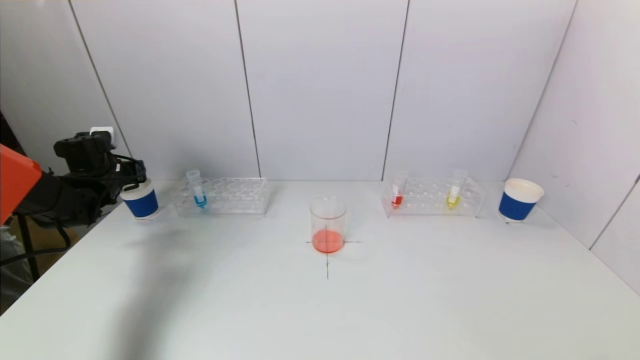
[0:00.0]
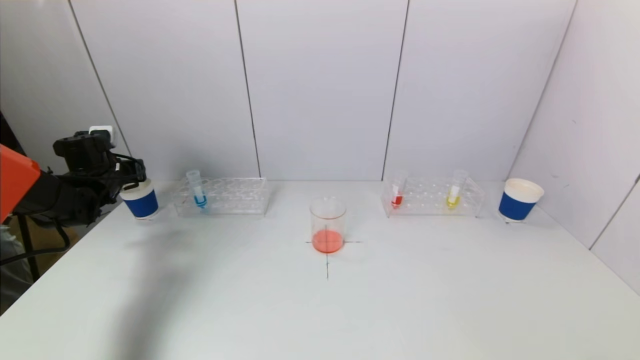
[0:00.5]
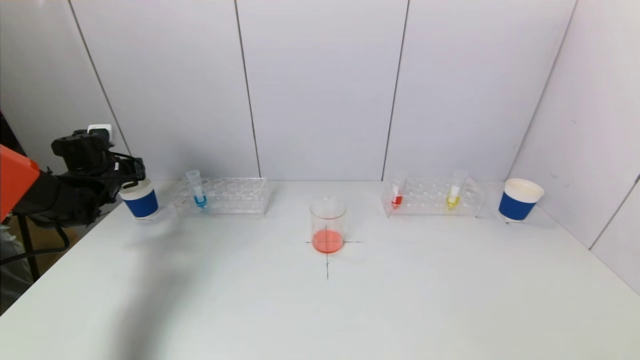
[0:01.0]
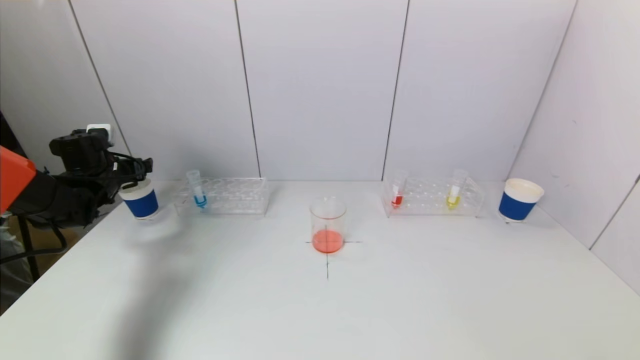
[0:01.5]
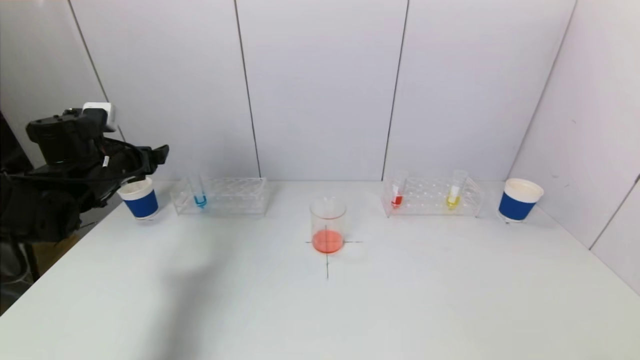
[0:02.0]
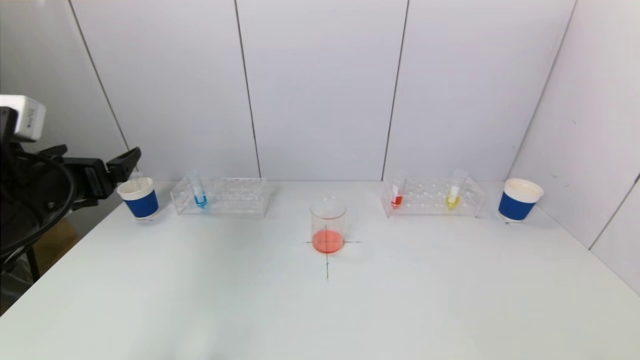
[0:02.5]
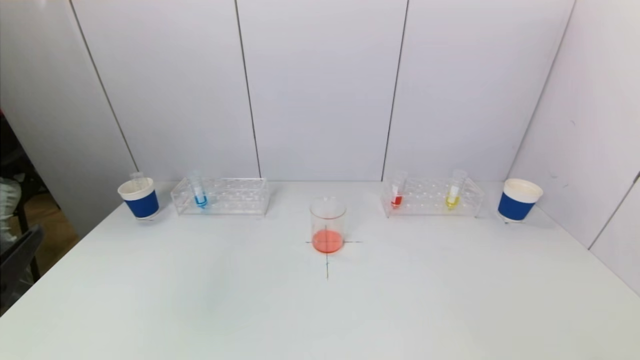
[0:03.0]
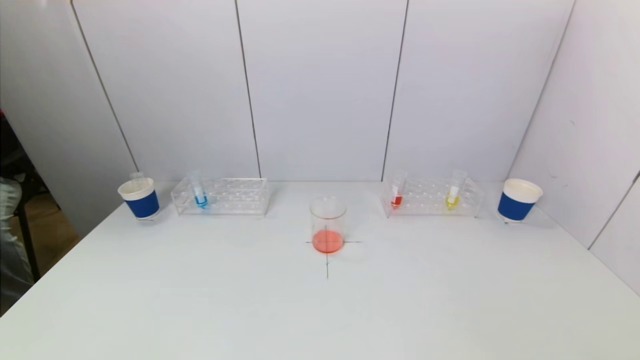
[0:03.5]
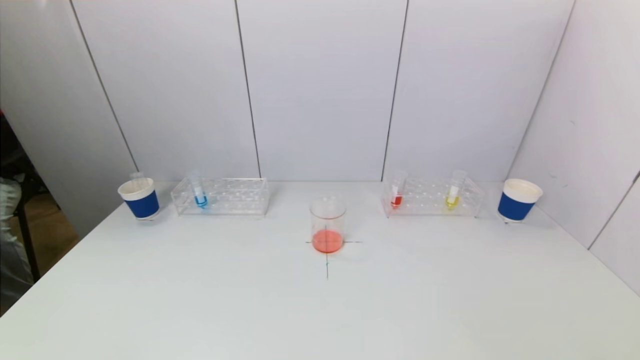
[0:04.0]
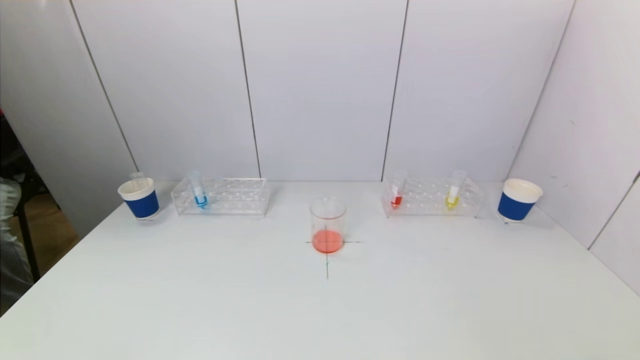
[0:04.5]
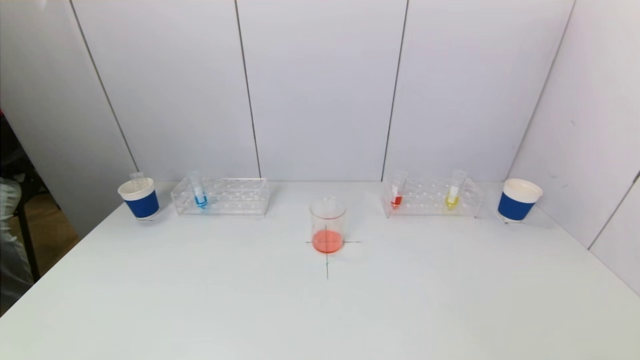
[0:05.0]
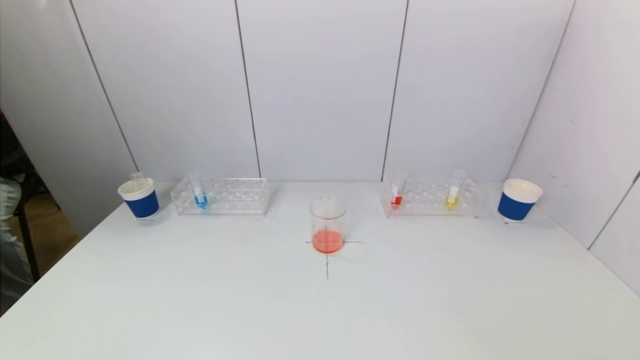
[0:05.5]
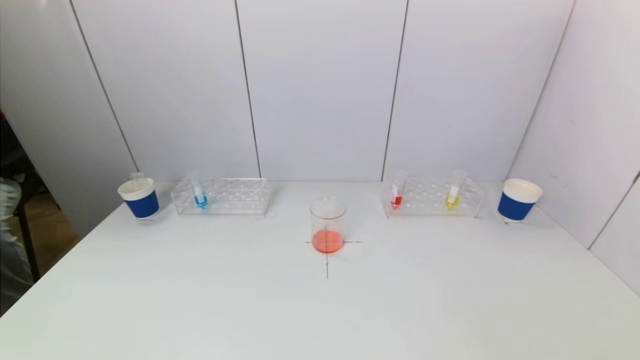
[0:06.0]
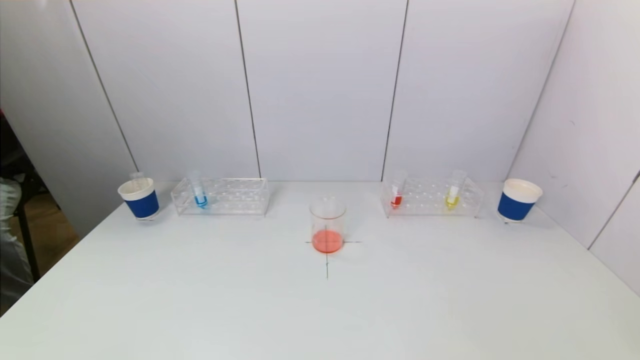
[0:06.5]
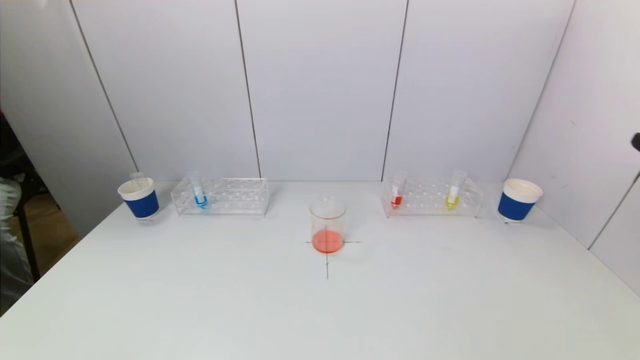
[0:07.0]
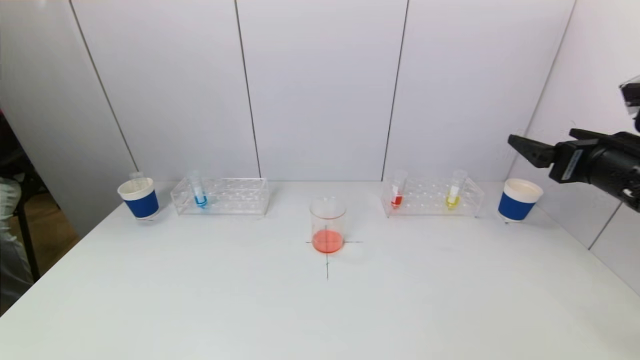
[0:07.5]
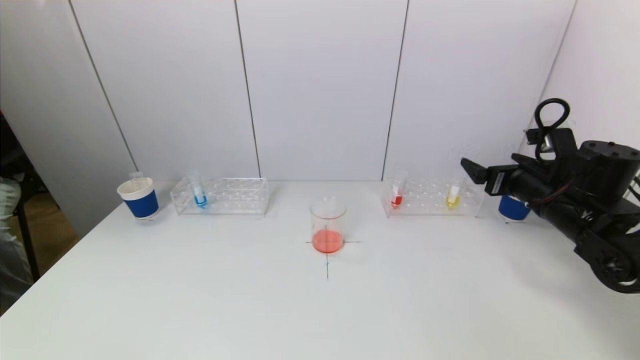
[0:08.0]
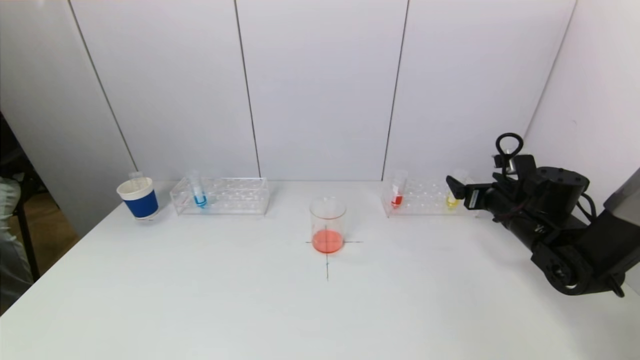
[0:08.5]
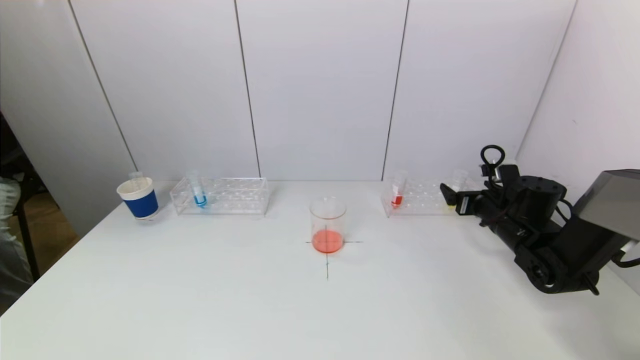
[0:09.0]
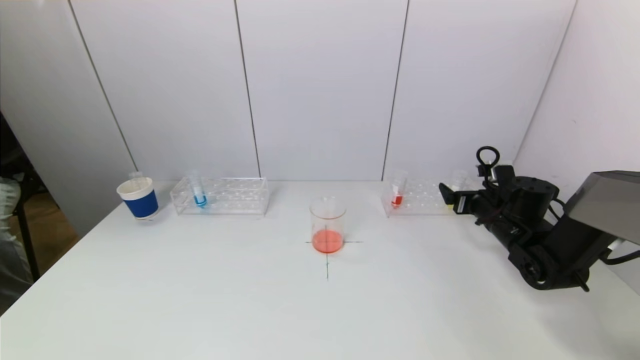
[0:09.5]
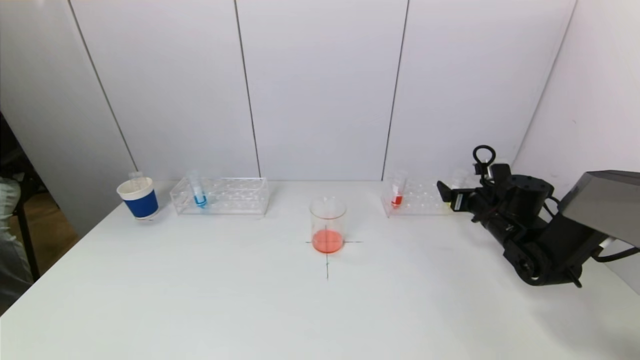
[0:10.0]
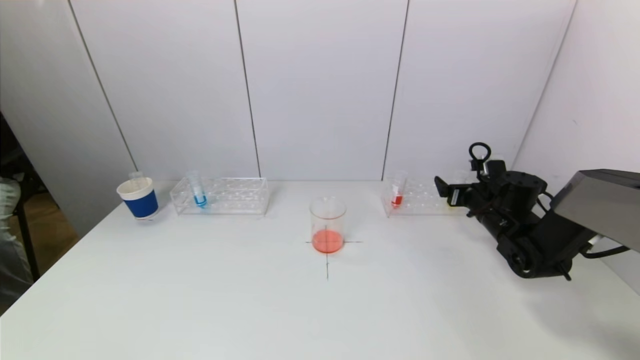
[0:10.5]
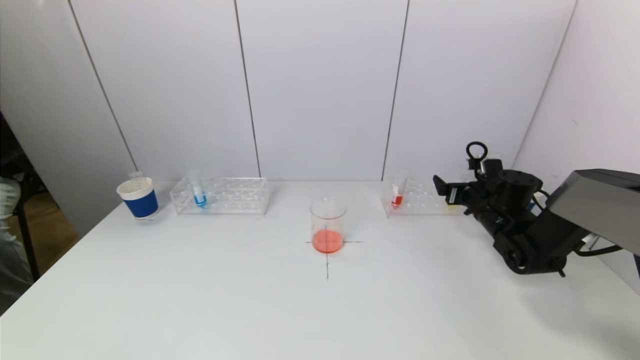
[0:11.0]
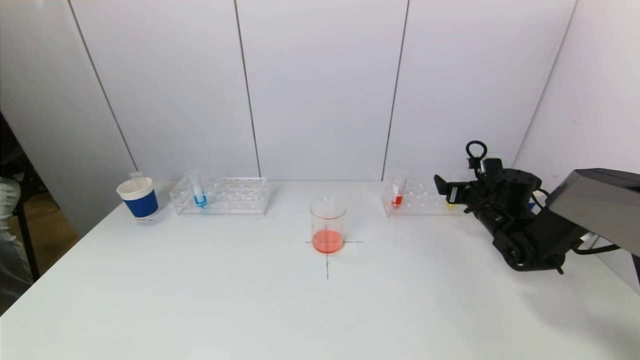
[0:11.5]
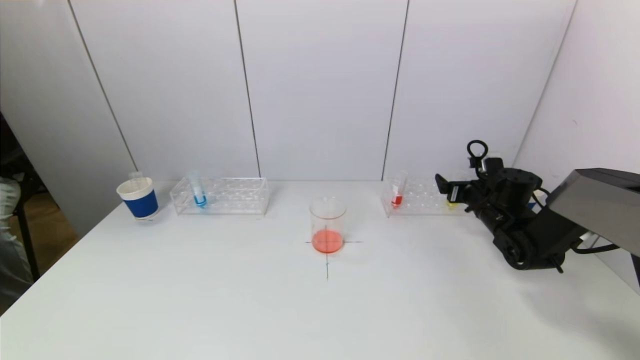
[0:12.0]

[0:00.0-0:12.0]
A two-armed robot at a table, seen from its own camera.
Task of the whole recording: pick up a test tube with pigment on left test tube rack and a test tube with pigment on right test tube rack by grippers and pour them into the beaker.
0:00.0 to 0:02.0: The left gripper travels backward, to the right and upward by approximately 15 cm, and opens its fingers.
0:02.0 to 0:04.0: The left gripper heads backward, covering some 40 cm.
0:04.0 to 0:06.0: Neither gripper changes place.
0:06.0 to 0:08.0: The right gripper is displaced forward by some 35 cm.
0:08.0 to 0:10.0: The right gripper heads downward and forward, covering roughly 15 cm.
0:10.0 to 0:12.0: The grippers stay close to where they were, moving slightly.

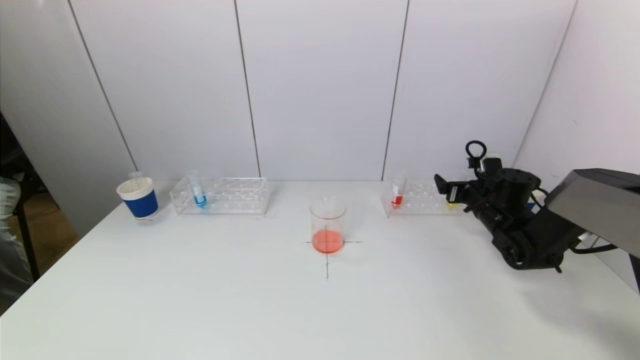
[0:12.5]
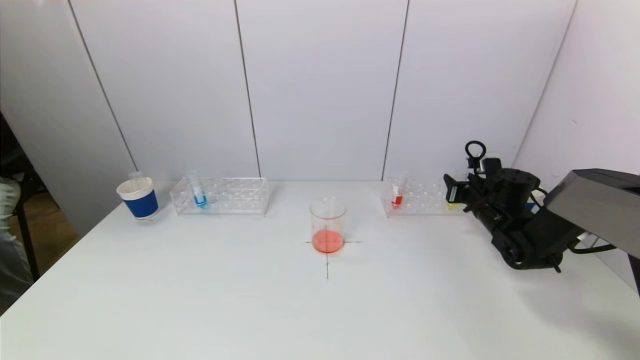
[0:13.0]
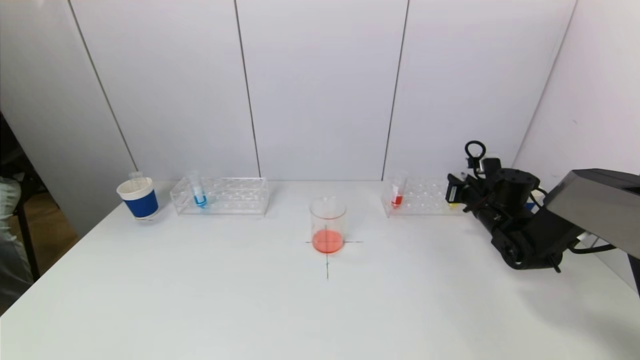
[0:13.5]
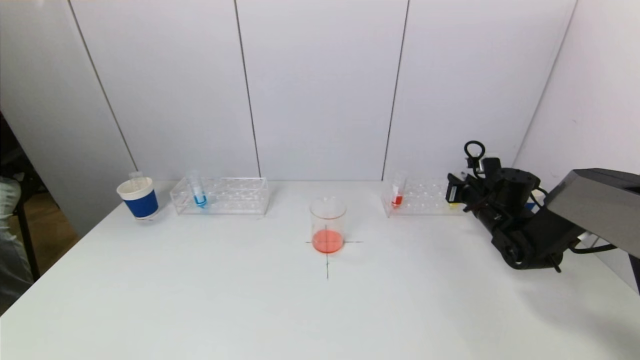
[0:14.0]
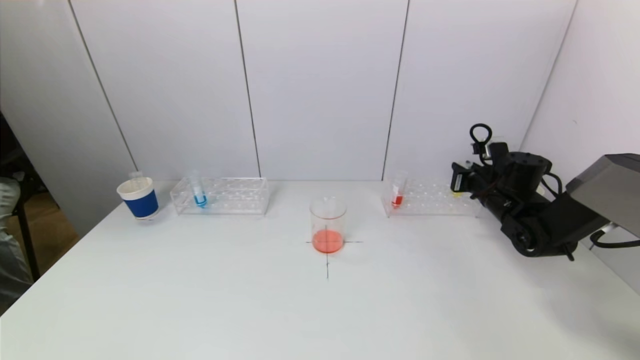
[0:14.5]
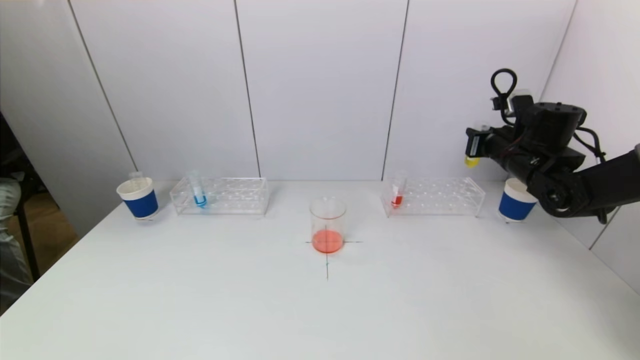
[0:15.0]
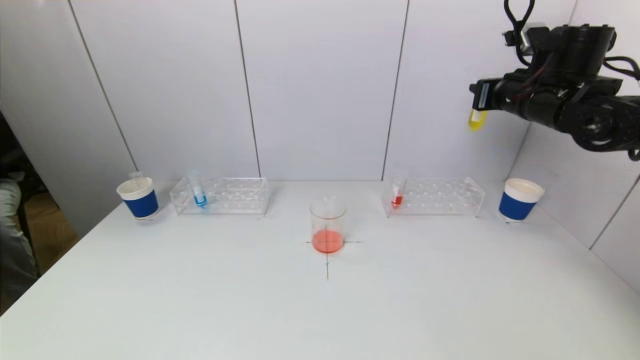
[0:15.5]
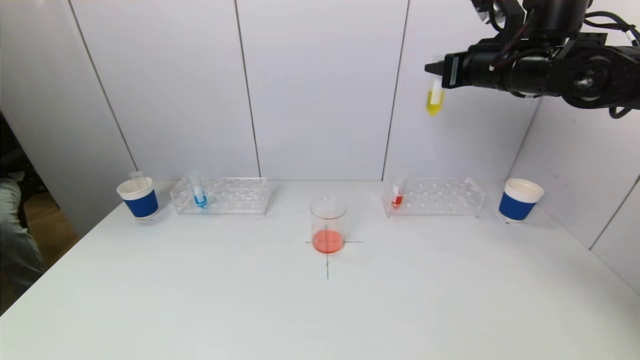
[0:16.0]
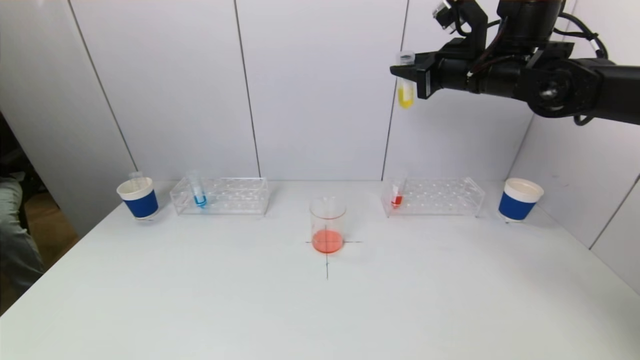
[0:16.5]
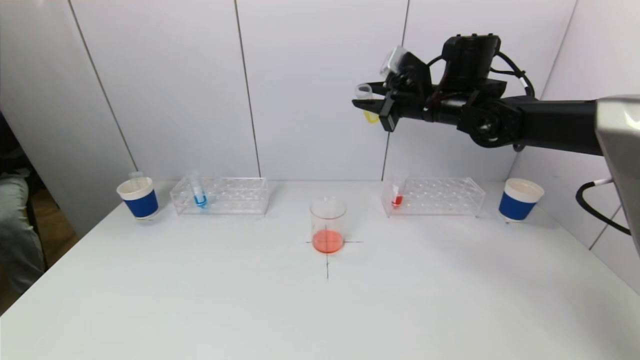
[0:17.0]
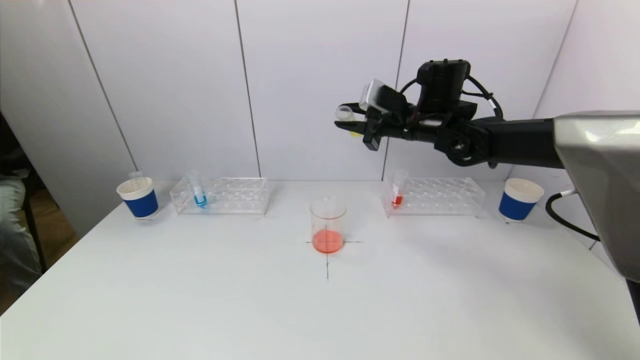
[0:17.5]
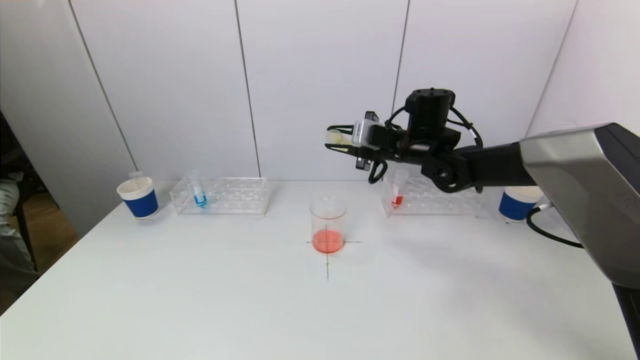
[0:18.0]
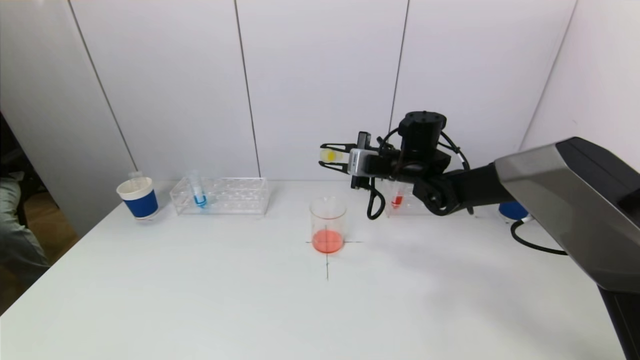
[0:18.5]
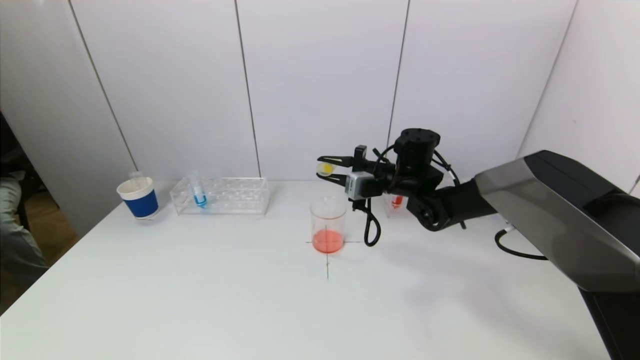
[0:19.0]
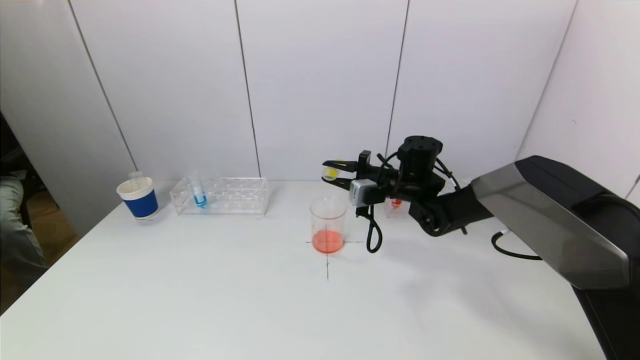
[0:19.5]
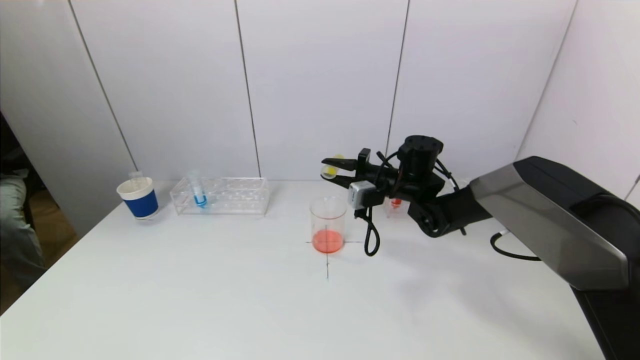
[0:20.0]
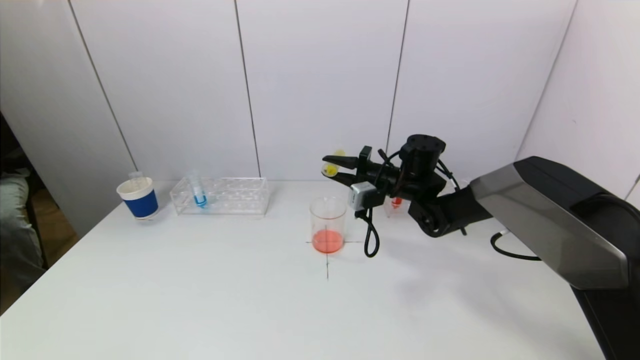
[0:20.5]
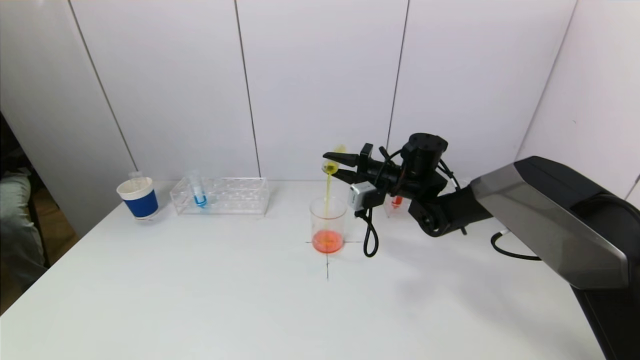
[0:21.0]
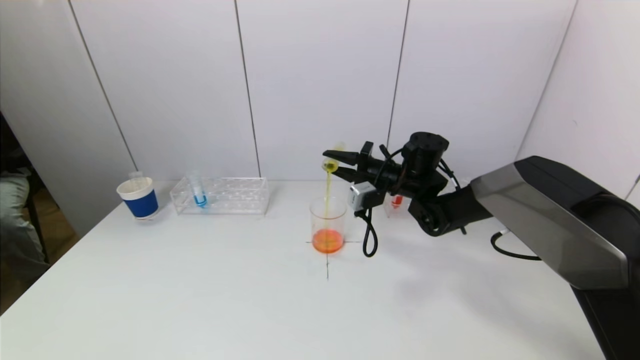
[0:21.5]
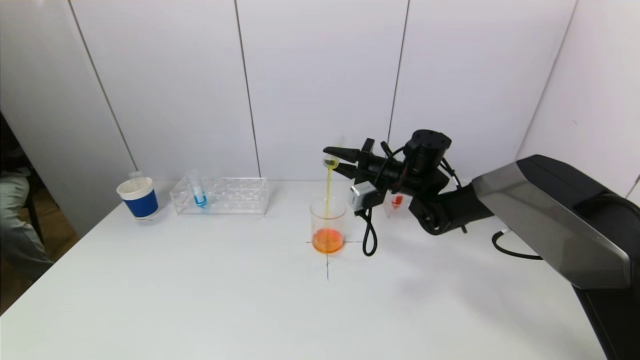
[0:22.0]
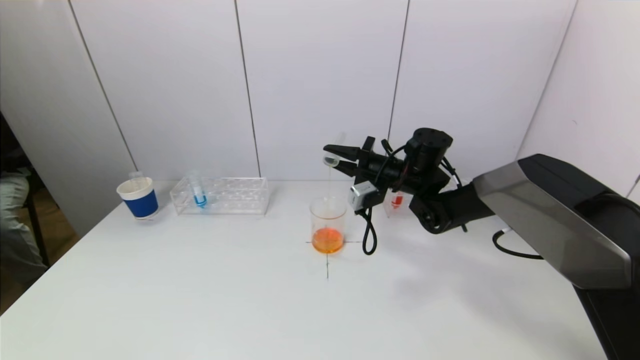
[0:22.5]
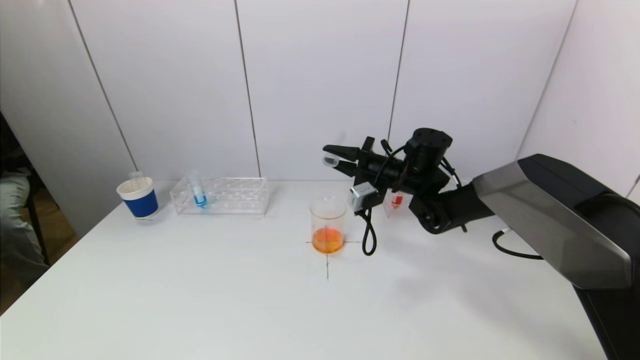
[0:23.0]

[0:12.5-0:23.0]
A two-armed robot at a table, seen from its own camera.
Task of the whole recording: pick up a test tube with pigment on left test tube rack and a test tube with pigment on right test tube rack by grippers and pour them into the beaker.
0:12.5 to 0:14.5: The right gripper closes up.
0:14.5 to 0:16.5: The right gripper heads upward and to the left, covering approximately 25 cm.
0:16.5 to 0:19.0: The right gripper moves downward and to the left, approximately 20 cm.
0:19.0 to 0:21.0: The grippers move only a little.
0:21.0 to 0:23.0: The grippers move only a little.
